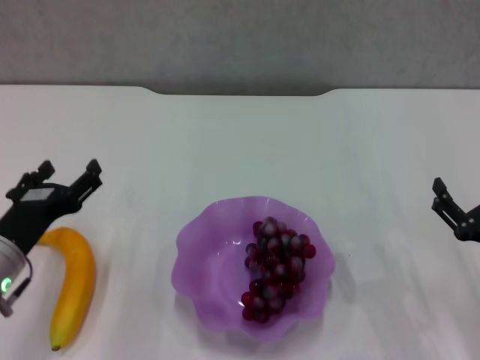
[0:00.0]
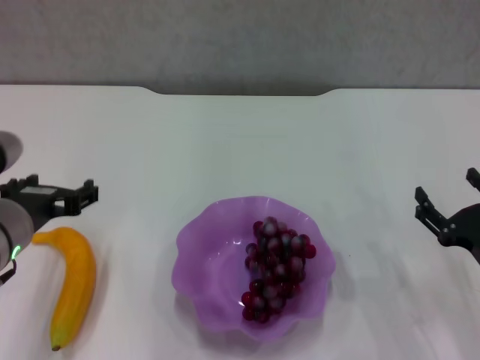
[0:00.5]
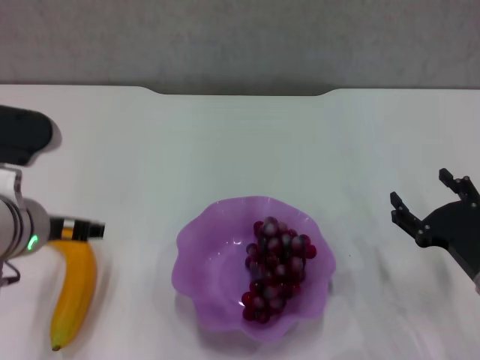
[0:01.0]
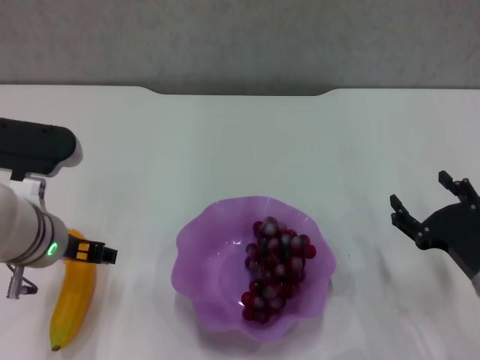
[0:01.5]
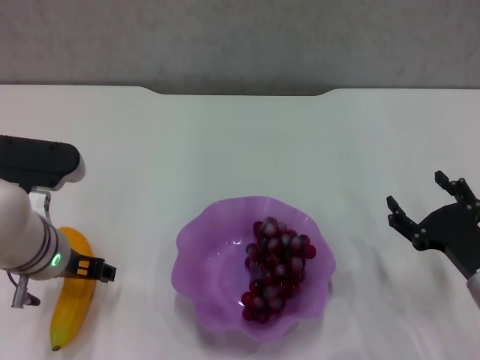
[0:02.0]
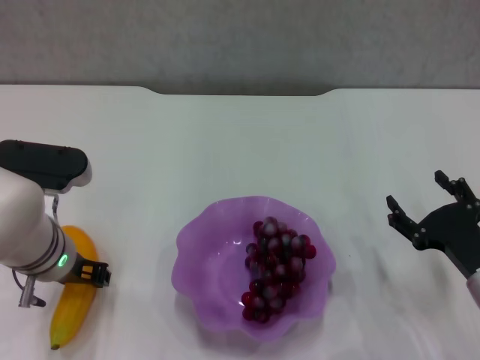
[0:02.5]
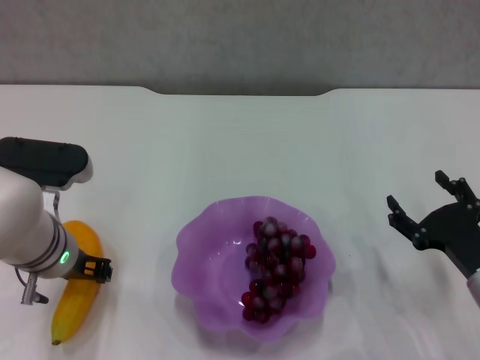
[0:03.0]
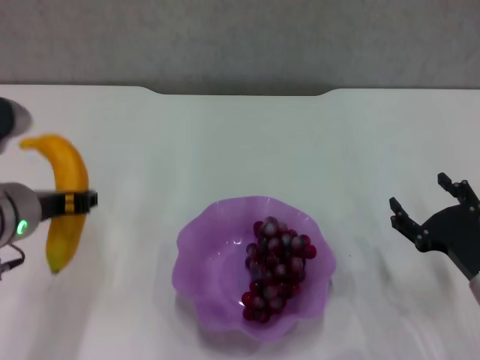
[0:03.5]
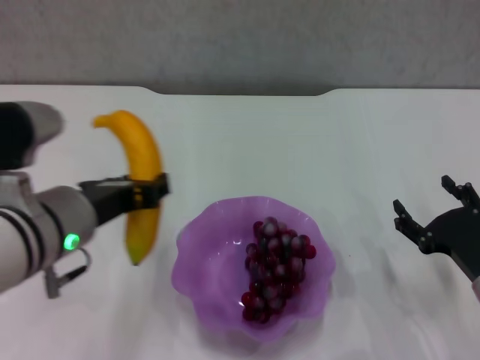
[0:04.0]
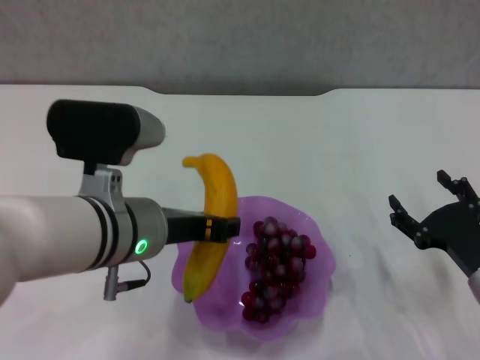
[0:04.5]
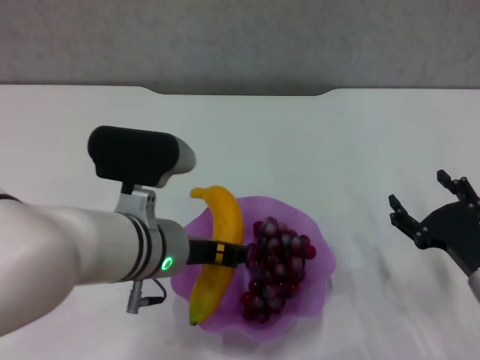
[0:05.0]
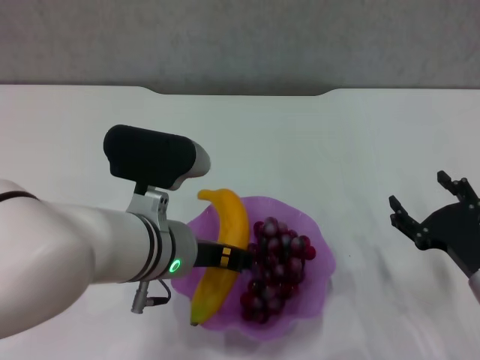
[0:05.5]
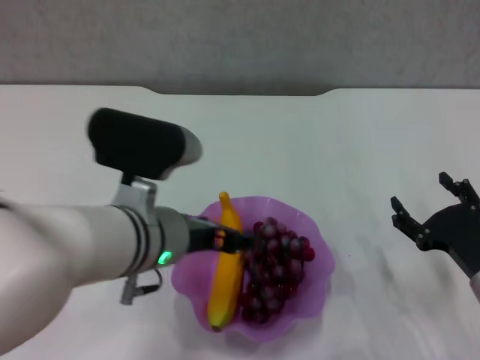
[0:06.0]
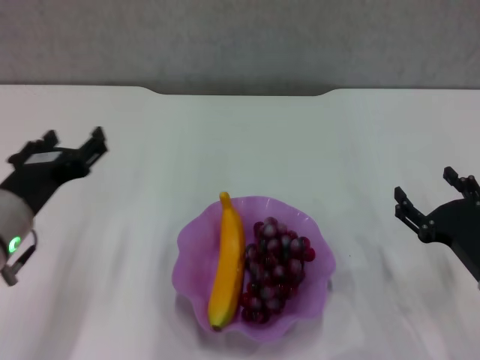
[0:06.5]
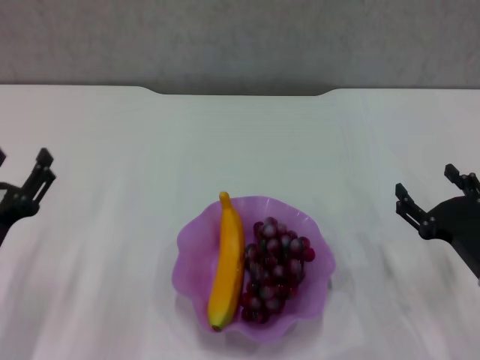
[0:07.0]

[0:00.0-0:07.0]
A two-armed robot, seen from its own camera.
Step, 0:00.0 to 0:02.5: Grasp the banana with left gripper.
Step, 0:03.0 to 0:06.0: Place the banana in the purple plate with left gripper.
0:00.0 to 0:02.0: The left gripper goes roughly 5 cm to the right.
0:02.0 to 0:03.5: The left gripper moves about 5 cm, and closes up.
0:03.5 to 0:05.0: The left gripper is displaced to the right by about 10 cm.
0:05.0 to 0:07.0: The left gripper is displaced to the left and downward by some 20 cm, and opens its fingers.

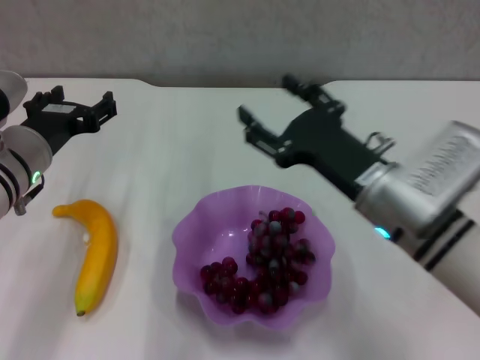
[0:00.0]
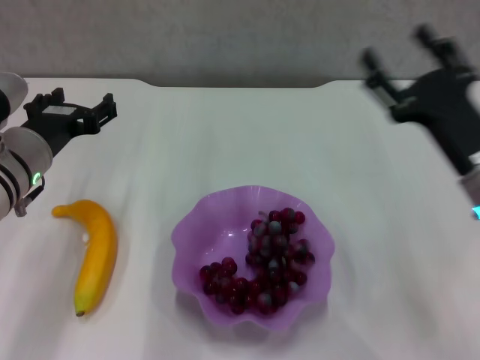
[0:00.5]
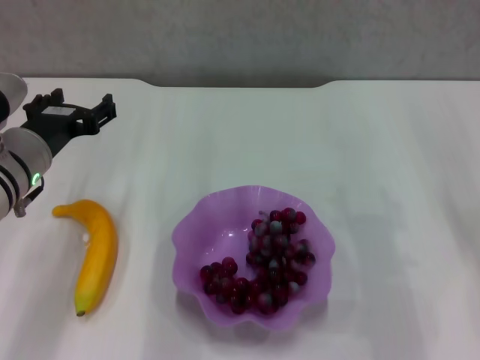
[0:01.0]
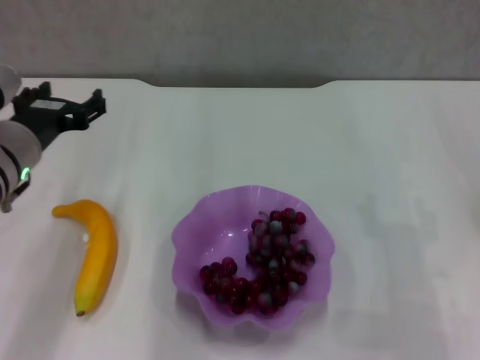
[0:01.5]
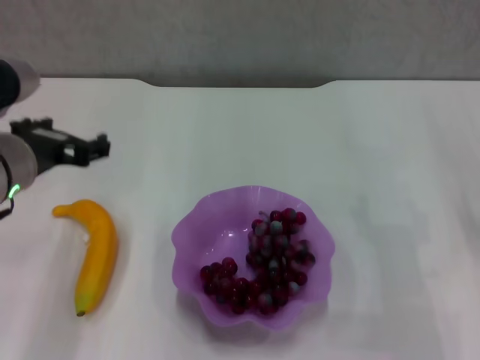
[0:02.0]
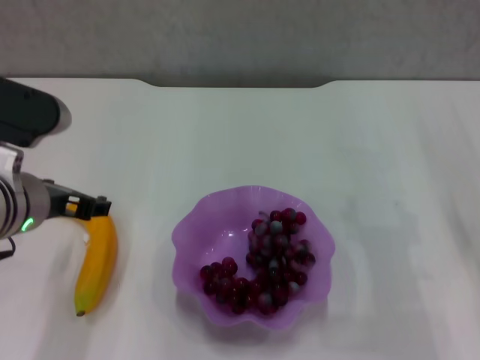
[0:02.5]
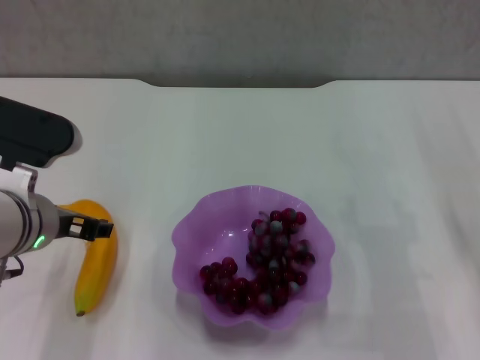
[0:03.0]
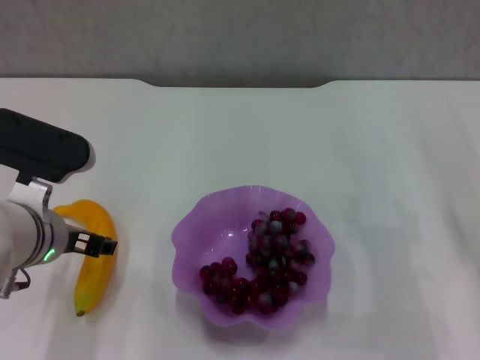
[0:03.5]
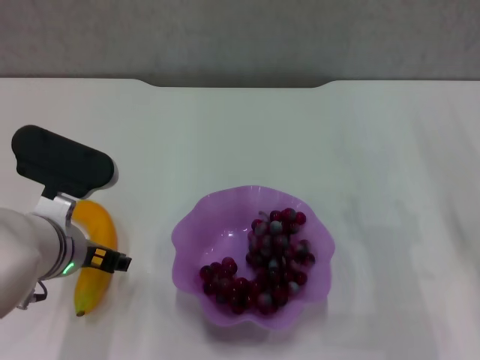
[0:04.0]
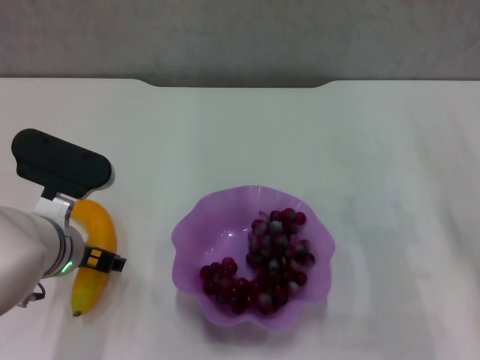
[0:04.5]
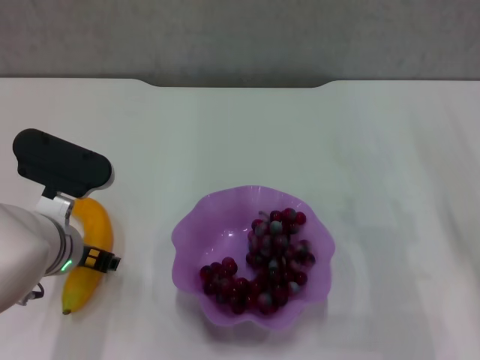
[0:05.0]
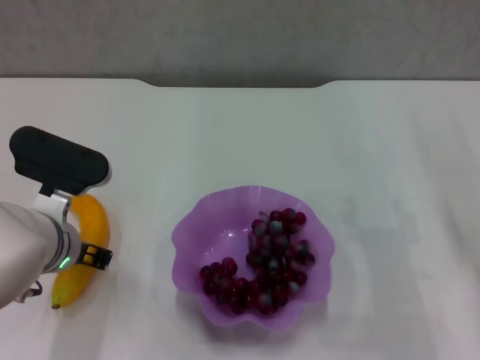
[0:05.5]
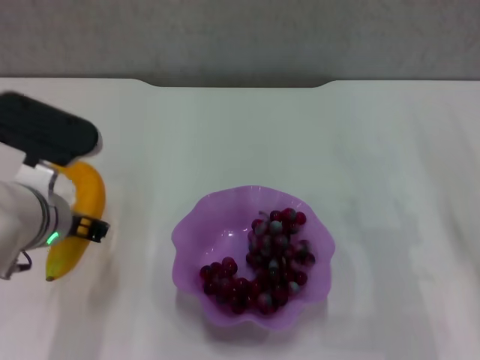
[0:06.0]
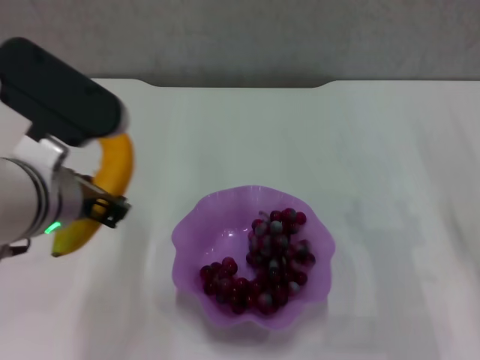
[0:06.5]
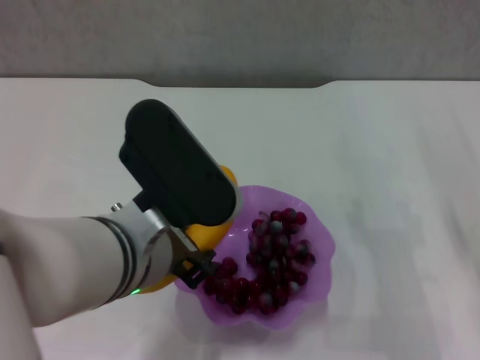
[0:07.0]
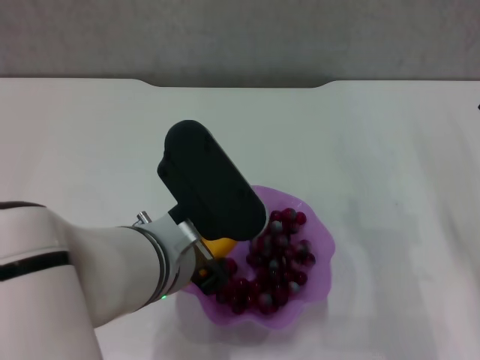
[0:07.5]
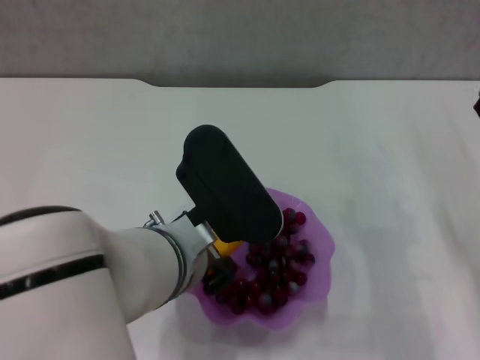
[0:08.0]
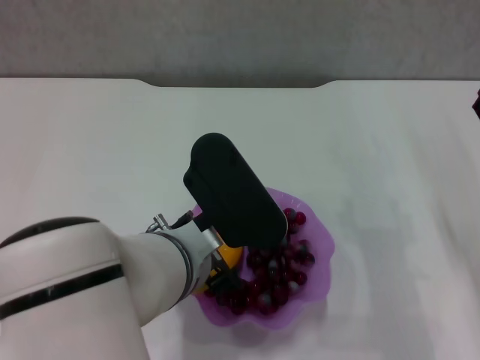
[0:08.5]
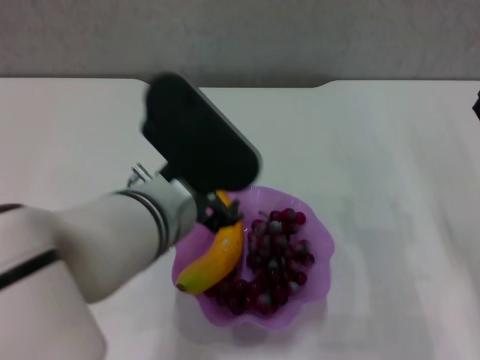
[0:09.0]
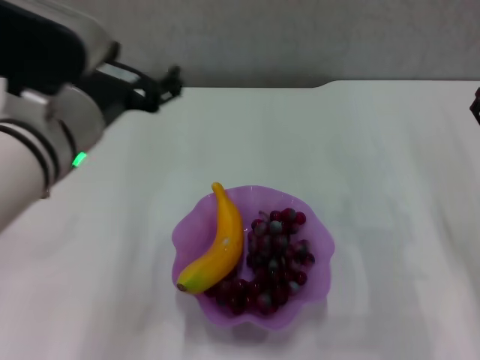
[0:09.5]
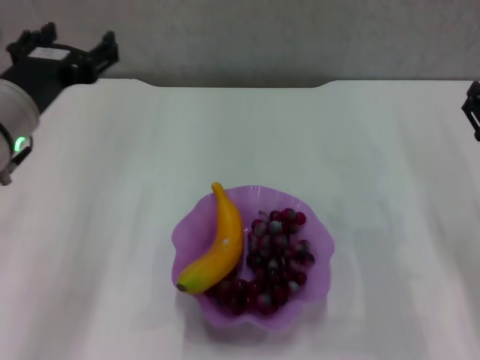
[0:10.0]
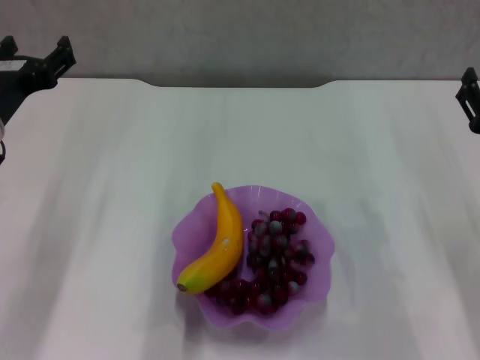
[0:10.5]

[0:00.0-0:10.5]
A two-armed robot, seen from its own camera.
Step, 0:00.0 to 0:05.0: Grasp the banana with left gripper.
Step, 0:05.5 to 0:09.0: Place the banana in the purple plate with left gripper.
0:00.0 to 0:02.0: The right gripper moves to the right, approximately 15 cm; the left gripper is displaced upward by roughly 5 cm.
0:02.0 to 0:04.0: The left gripper heads downward, covering roughly 5 cm.
0:04.0 to 0:06.5: The left gripper moves upward, about 10 cm, and closes its fingers.
0:06.5 to 0:08.5: The left gripper heads to the right and downward, covering about 10 cm, and opens its fingers.
0:08.5 to 0:10.5: The left gripper goes about 20 cm to the left and forward, and opens its fingers.
